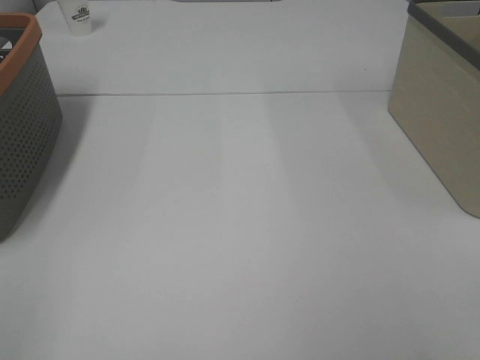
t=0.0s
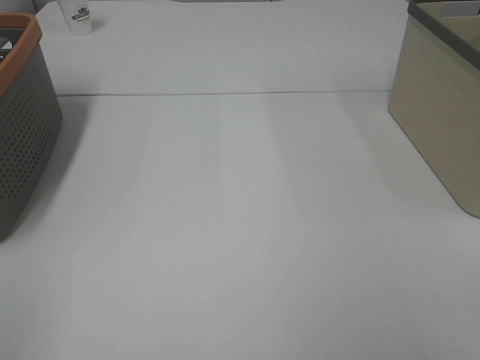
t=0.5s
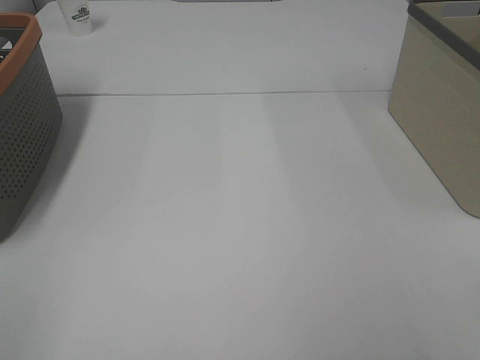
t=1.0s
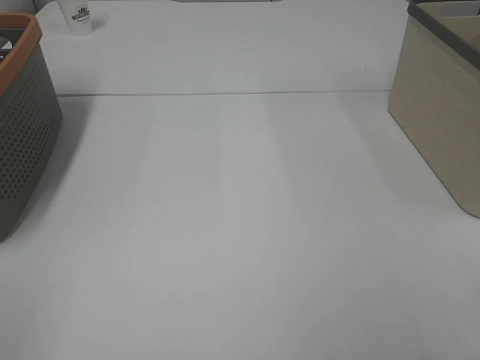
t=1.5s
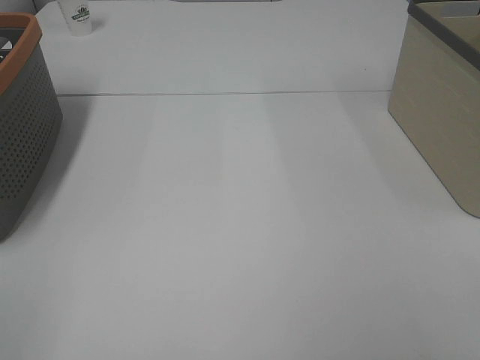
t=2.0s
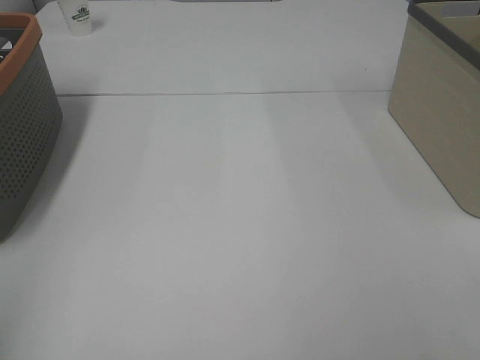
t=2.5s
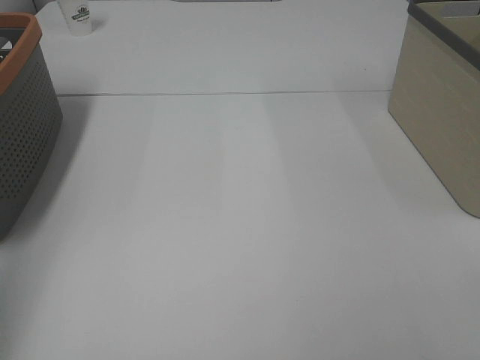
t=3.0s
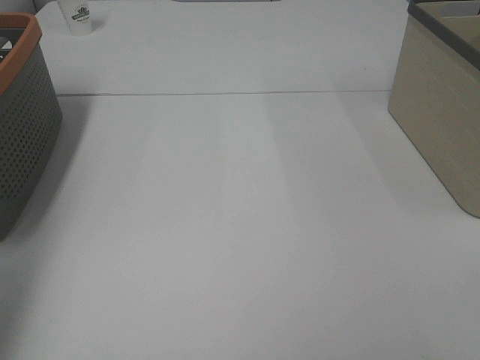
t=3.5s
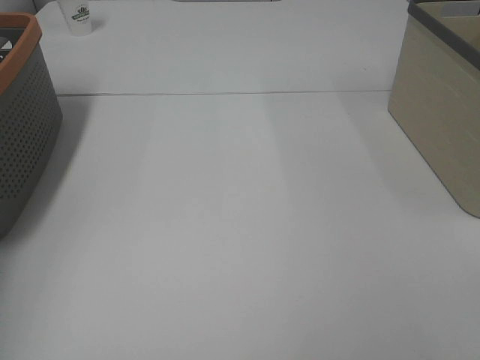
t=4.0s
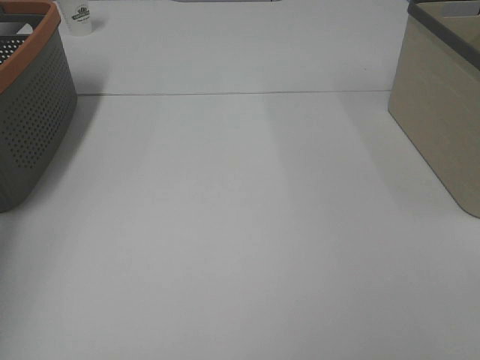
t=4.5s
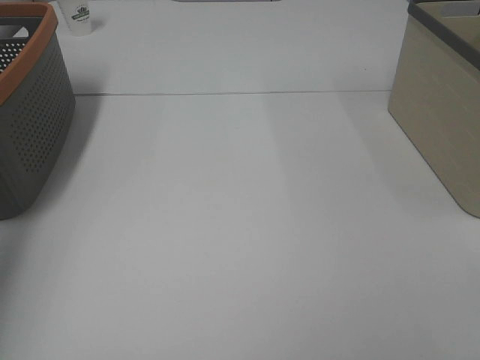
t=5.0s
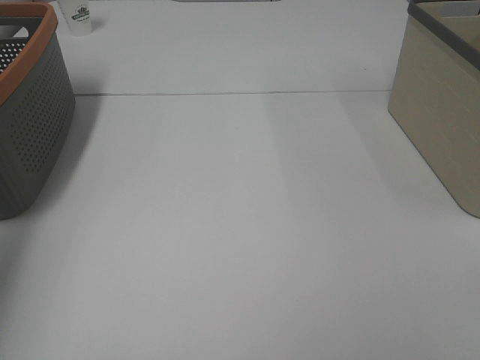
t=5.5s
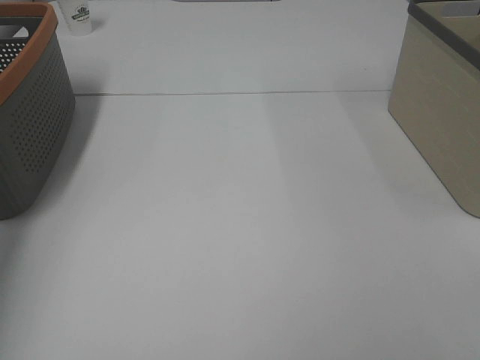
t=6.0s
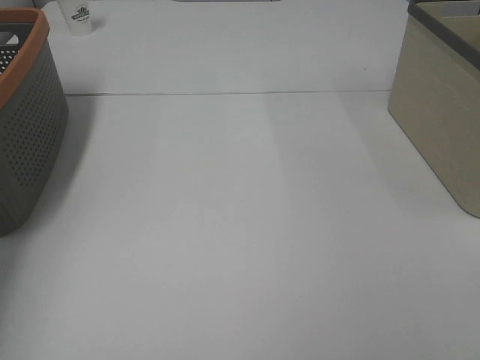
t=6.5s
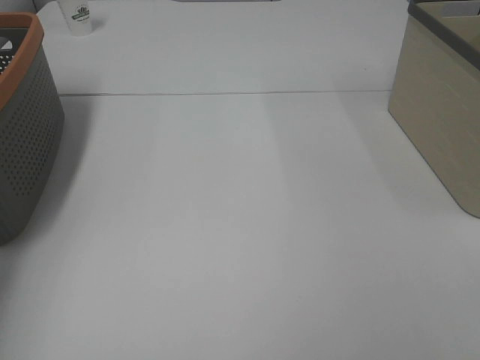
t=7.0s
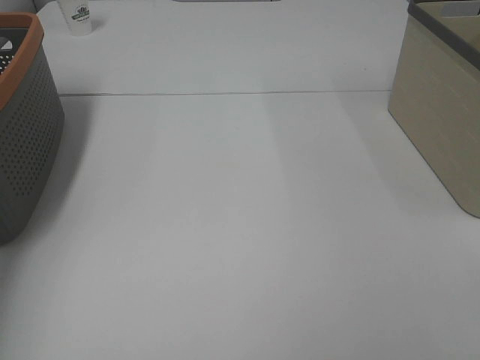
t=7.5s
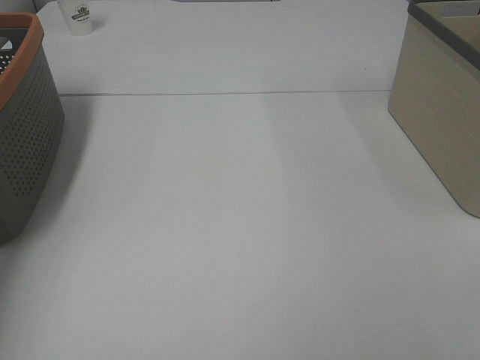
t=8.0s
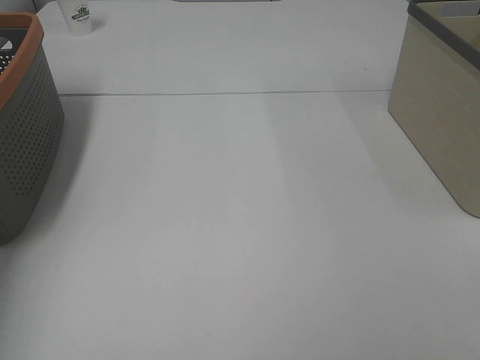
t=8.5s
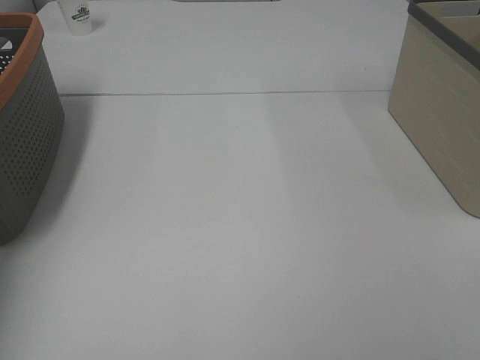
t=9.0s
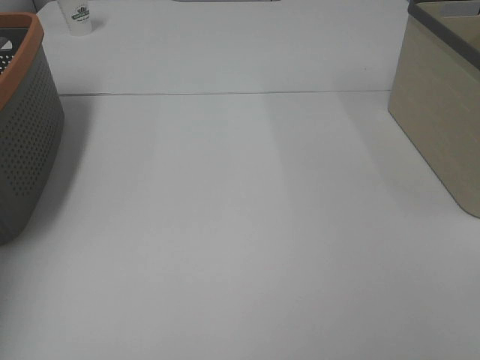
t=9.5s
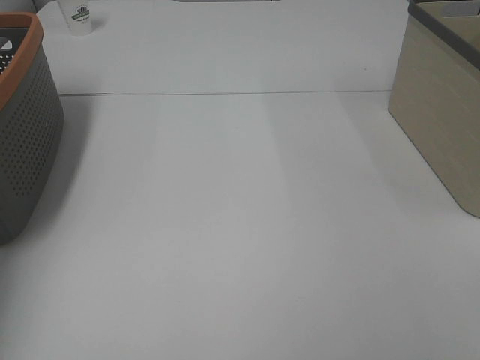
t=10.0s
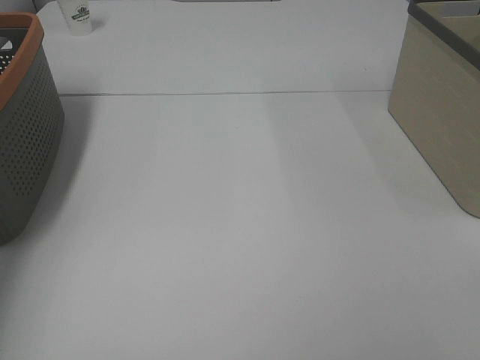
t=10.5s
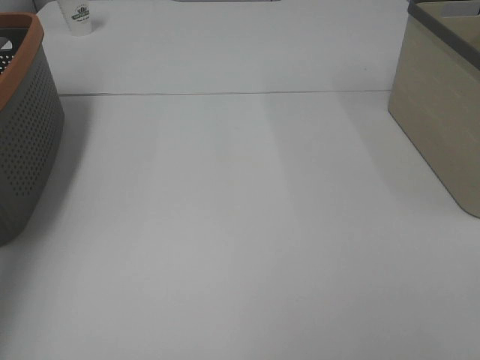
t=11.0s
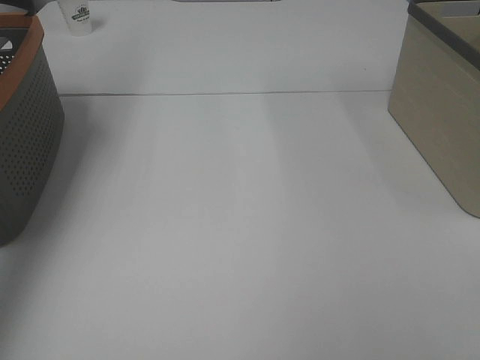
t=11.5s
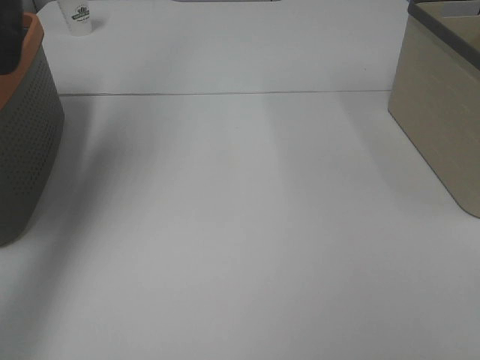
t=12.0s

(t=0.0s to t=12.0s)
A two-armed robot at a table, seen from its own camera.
Task of the whole recording: Remove the towel and place it.
t=0.0s - t=2.0s: Both grippers stay put.
t=2.0s - t=4.0s: The left gripper travels forward by some 30 cm.
t=4.0s - t=6.0s: The left gripper is displaced forward by some 5 cm.
t=10.0s - t=12.0s: The left gripper goes roughly 35 cm upward.

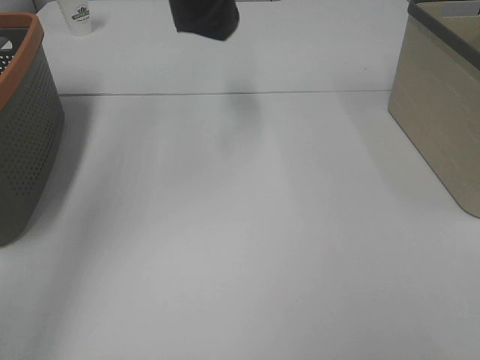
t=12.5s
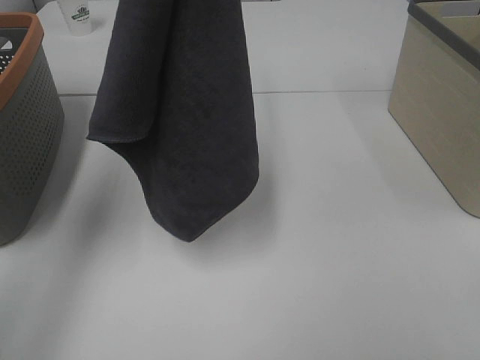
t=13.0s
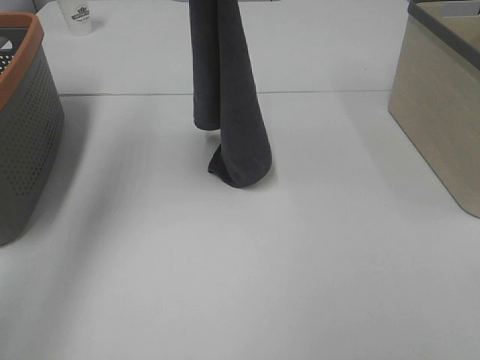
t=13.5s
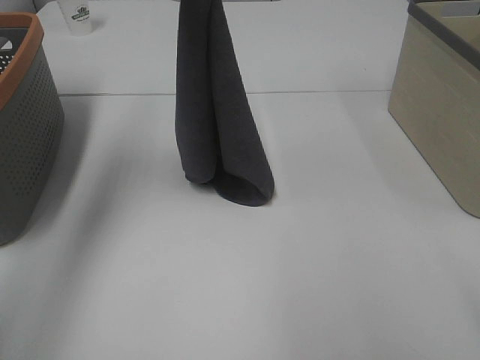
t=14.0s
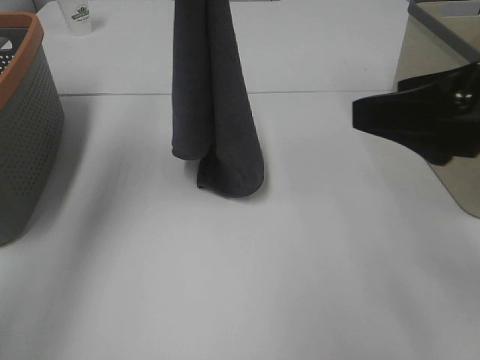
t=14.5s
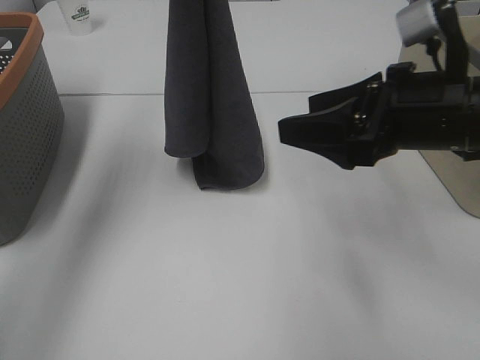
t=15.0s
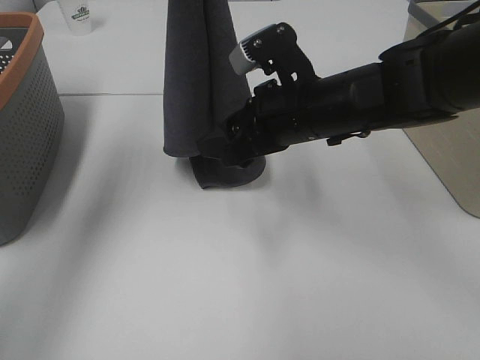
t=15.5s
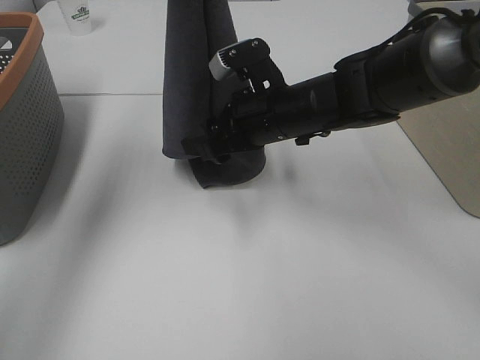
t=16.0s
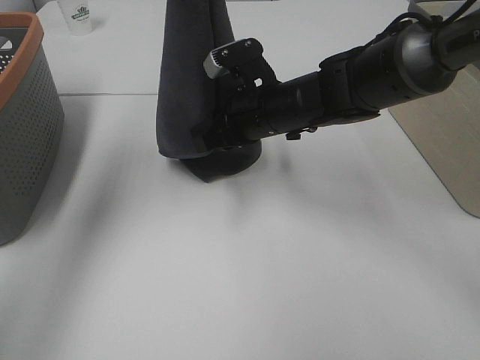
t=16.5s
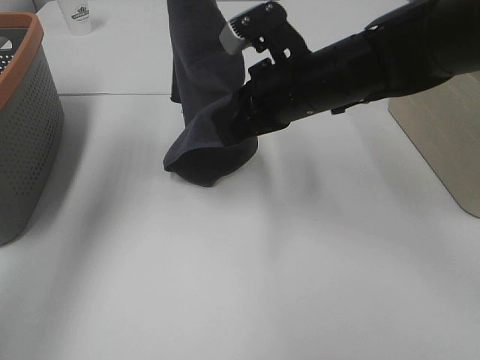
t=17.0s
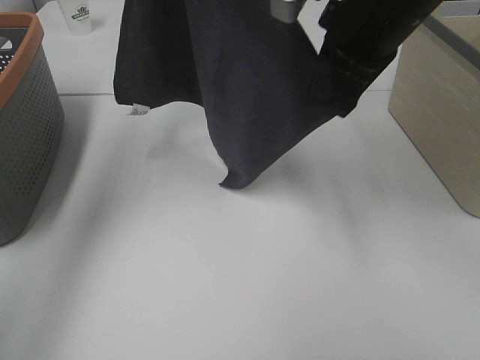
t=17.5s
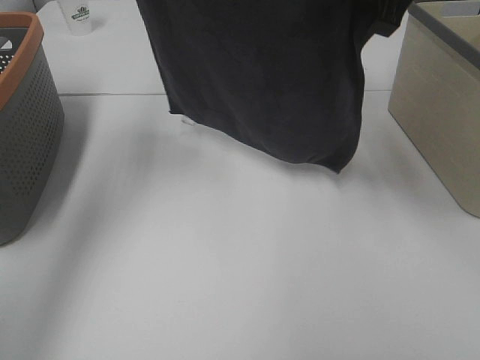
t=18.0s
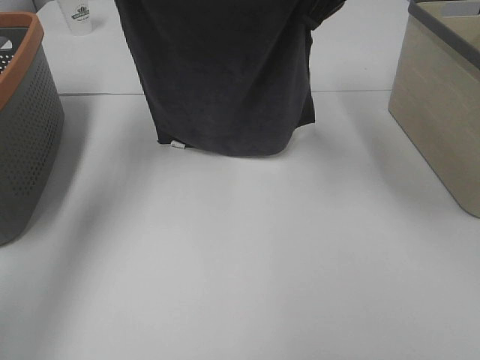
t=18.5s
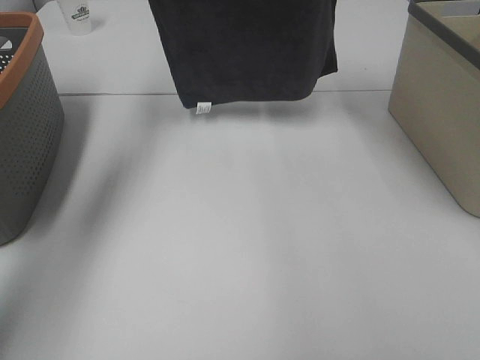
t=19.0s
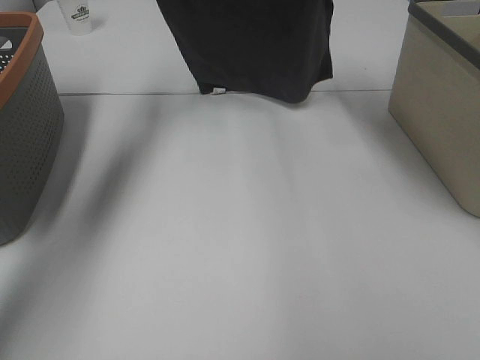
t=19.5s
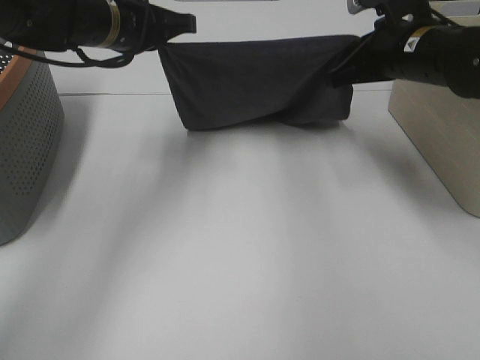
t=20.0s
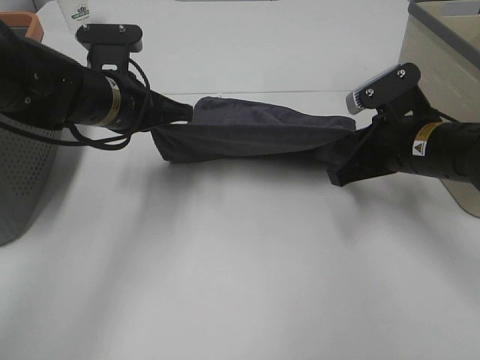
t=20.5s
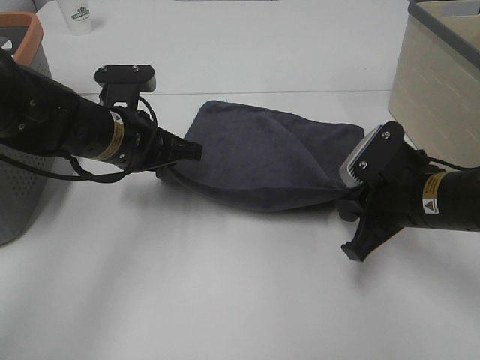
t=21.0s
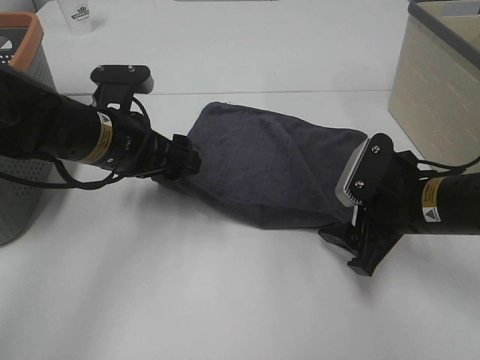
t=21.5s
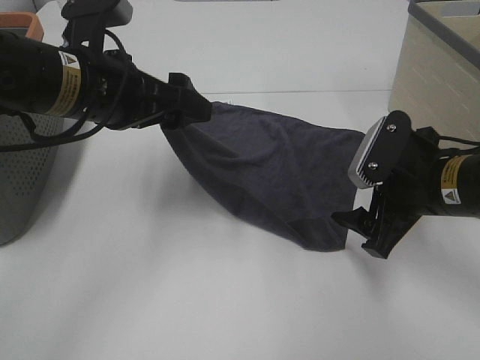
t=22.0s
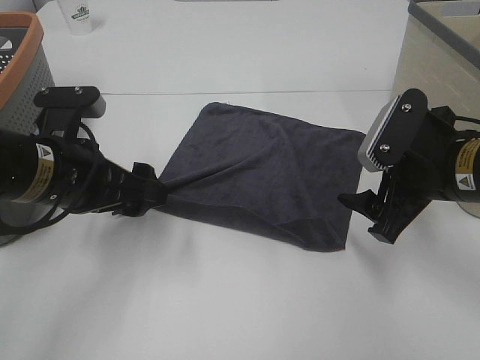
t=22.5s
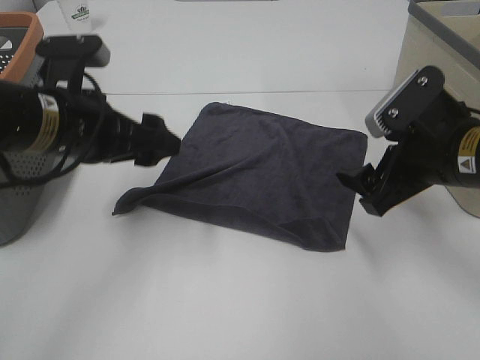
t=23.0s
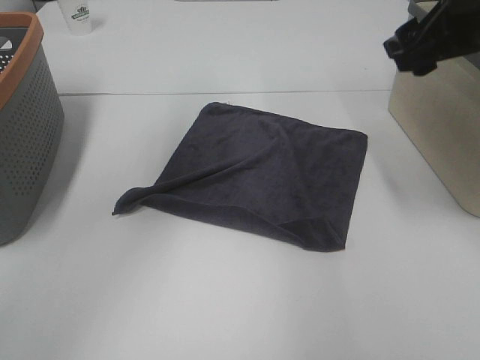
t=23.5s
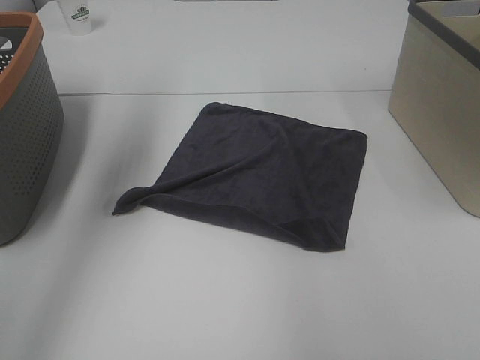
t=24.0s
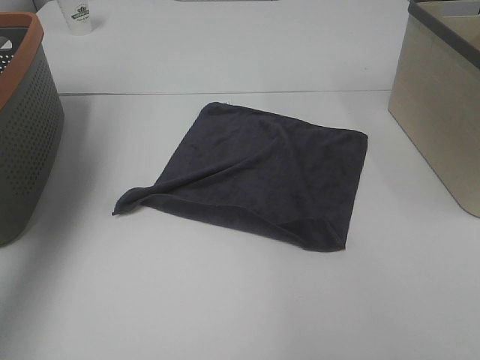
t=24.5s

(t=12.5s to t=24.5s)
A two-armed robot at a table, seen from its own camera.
Task of the whole recording: Remove the towel and place it.
Step, t=12.5s - t=15.0s: Right hand: grab a corner of the grey towel and straighten it.
Step, t=15.5s - t=17.0s: Right hand: spread the grey towel flat on the table.
Step, t=15.5s - t=18.0s: Left hand: spread the grey towel flat on the table.
t=12.5s - t=14.5s: The right gripper shifts about 20 cm forward, while the left gripper travels downward by approximately 15 cm.
t=14.5s - t=16.5s: The right gripper moves forward, to the left and downward, approximately 30 cm, and closes its fingers.
t=16.5s - t=18.5s: The right gripper heads upward, covering about 20 cm, while the left gripper shifts approximately 5 cm downward.
t=18.5s - t=20.5s: The right gripper travels downward, to the right and backward by roughly 25 cm. Meanwhile the left gripper travels downward by some 15 cm.
t=20.5s - t=22.5s: The left gripper shifts about 10 cm backward, and opens; the right gripper heads backward, covering roughly 5 cm, and opens its fingers.
t=22.5s - t=24.5s: The left gripper goes roughly 30 cm upward, to the left and forward. The right gripper travels upward by roughly 25 cm.

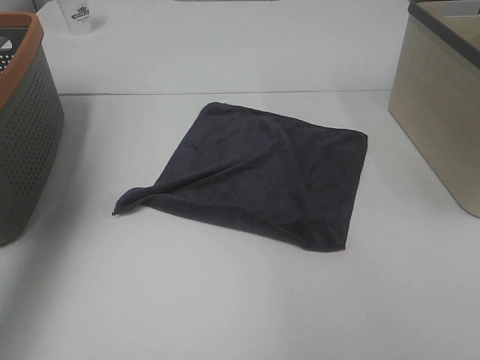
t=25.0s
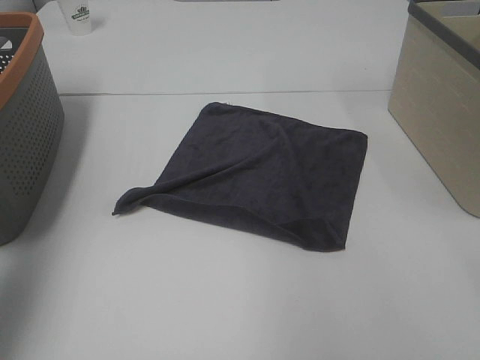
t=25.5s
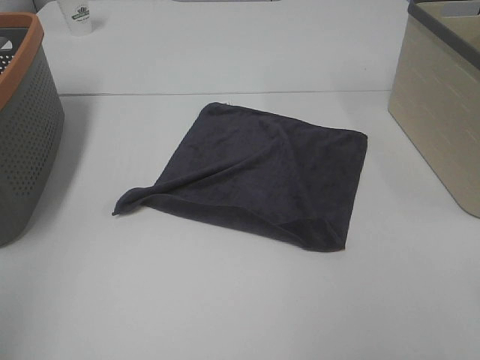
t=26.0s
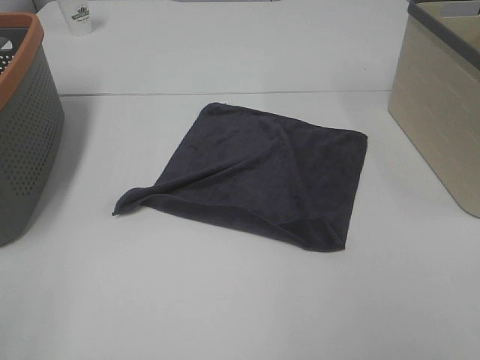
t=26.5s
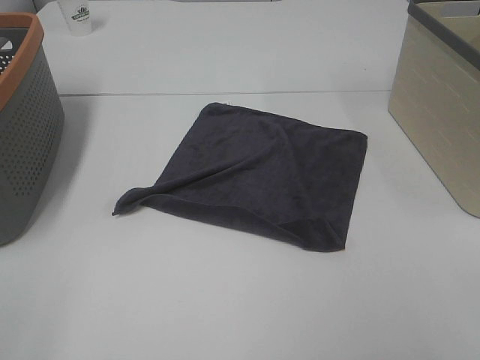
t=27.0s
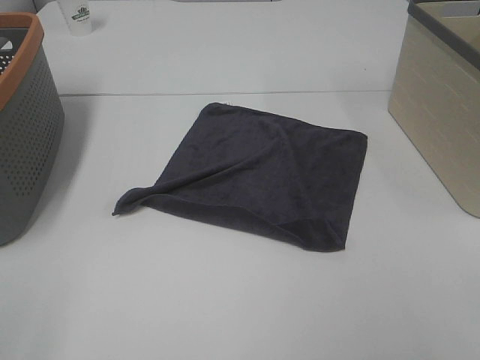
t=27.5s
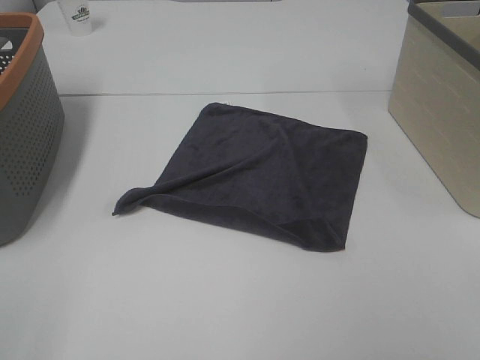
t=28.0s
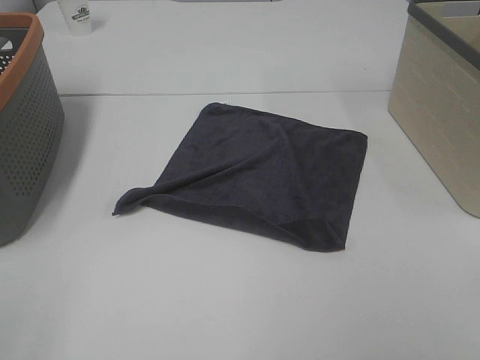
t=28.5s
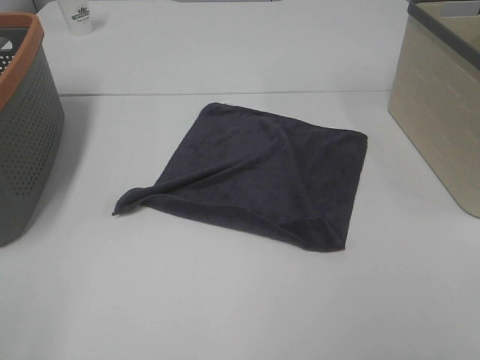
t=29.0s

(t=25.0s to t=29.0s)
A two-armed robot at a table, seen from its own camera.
Task of the whole recording: Remove the towel and place it.
t=25.0s - t=27.0s: The left gripper goes approximately 35 cm backward and downward.
